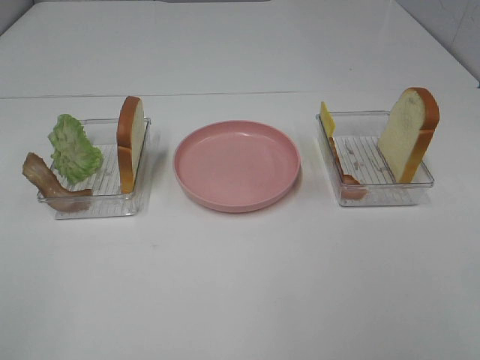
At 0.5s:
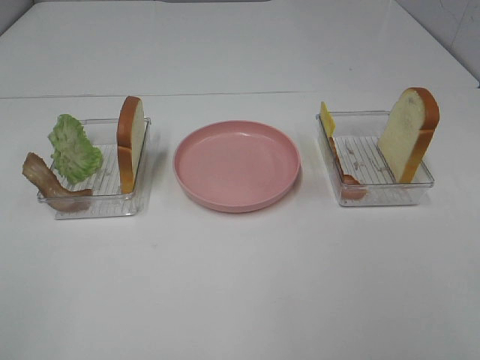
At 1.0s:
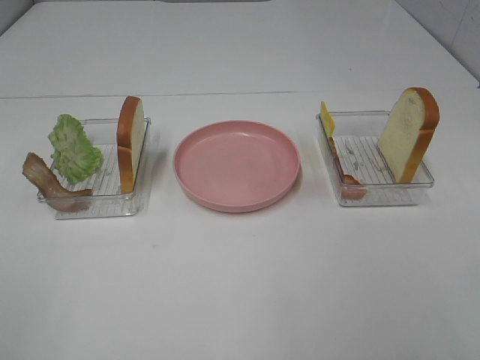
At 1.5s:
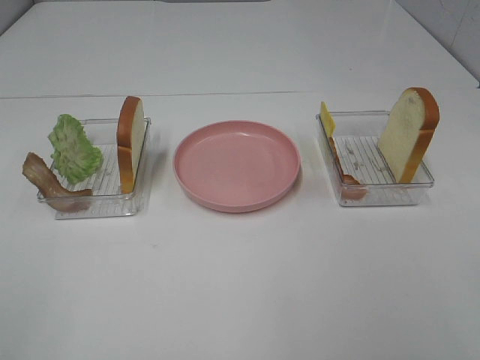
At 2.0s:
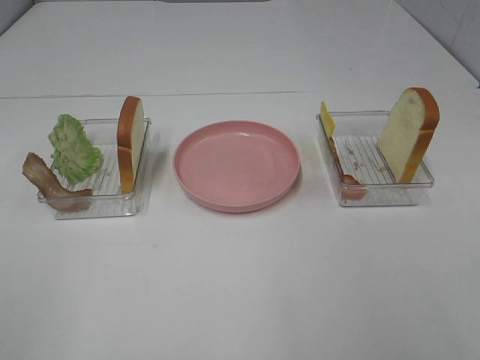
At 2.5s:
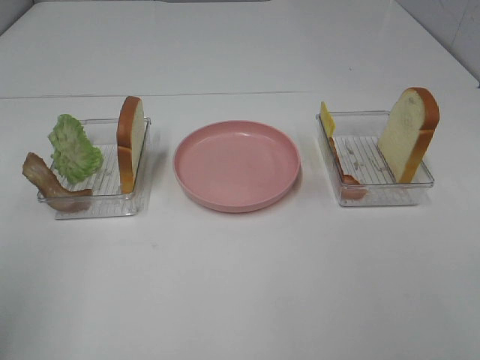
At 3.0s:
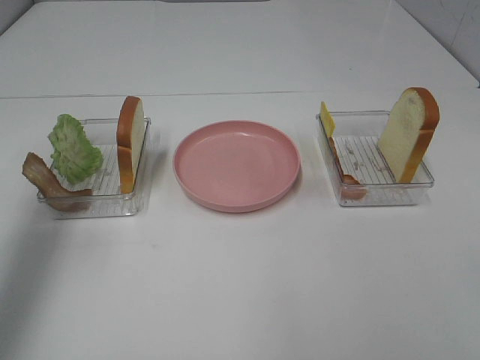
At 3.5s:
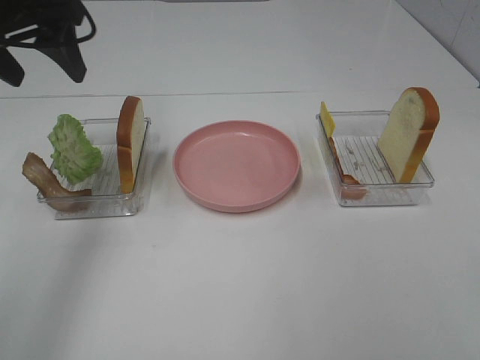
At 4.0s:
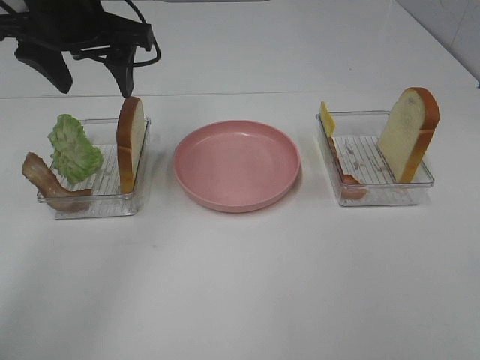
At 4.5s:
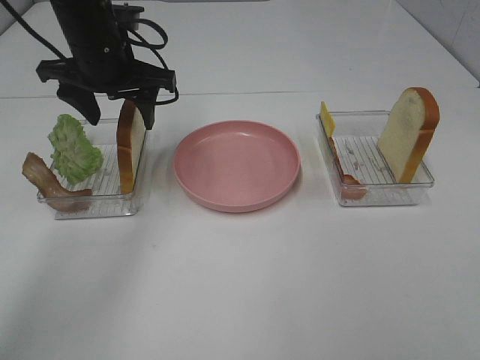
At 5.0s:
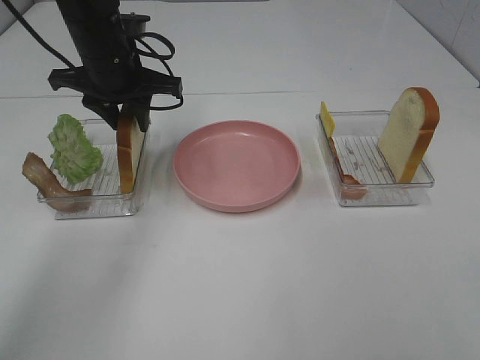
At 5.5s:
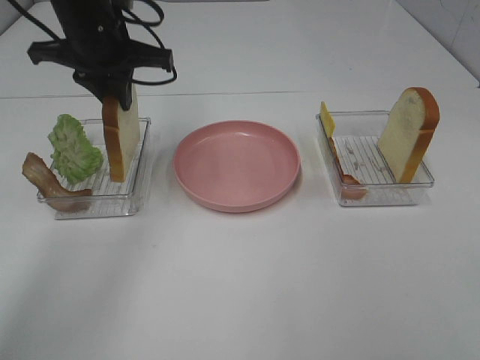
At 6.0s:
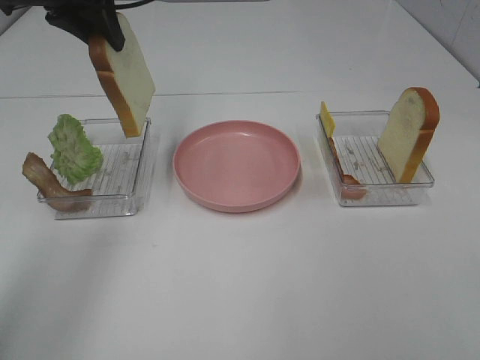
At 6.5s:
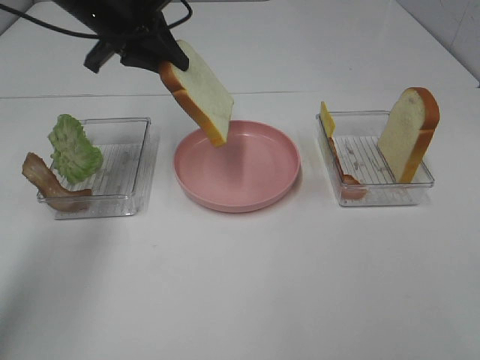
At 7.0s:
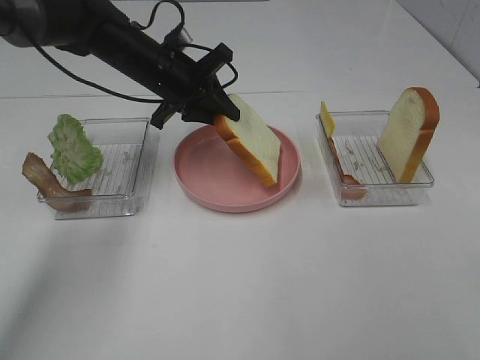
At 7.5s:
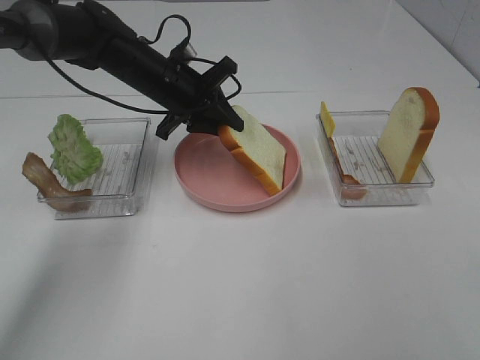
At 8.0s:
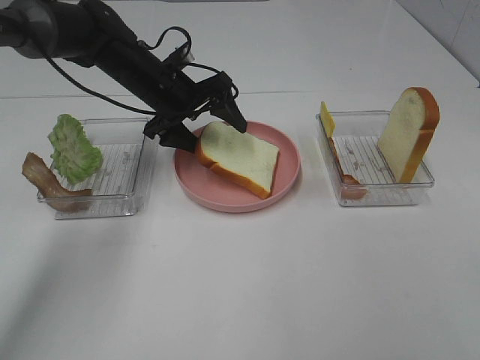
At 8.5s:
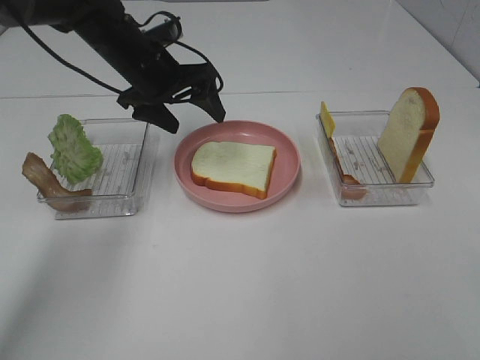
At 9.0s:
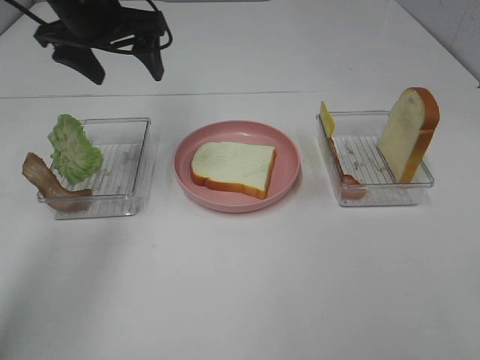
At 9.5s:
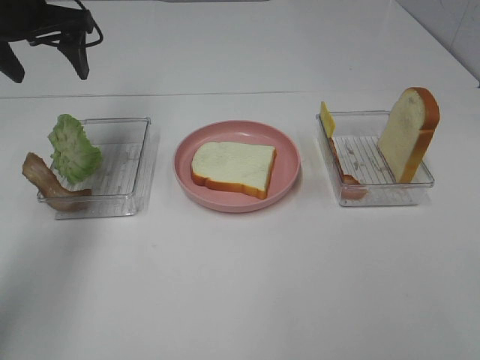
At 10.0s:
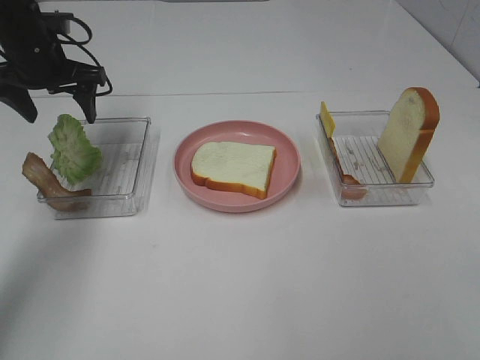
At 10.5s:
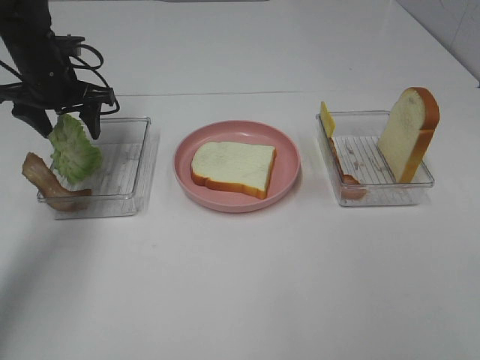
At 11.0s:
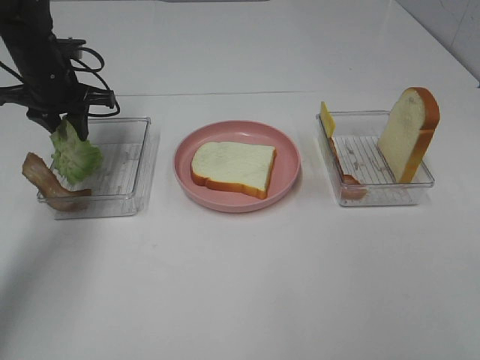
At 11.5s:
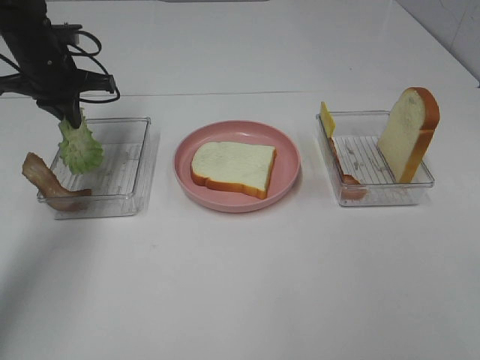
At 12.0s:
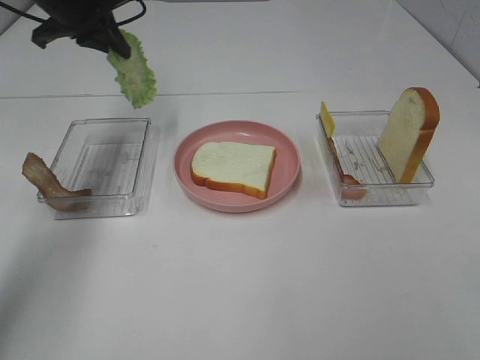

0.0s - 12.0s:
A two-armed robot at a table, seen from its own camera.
Task of the whole recording: Make sandwiches.
Step, 0.0s - 5.0s: Left hand:grab the bread slice.
Step, 5.5s - 8.0s: Left hand:place the bread slice on the plate.
Step, 8.5s - 11.0s: Left hand:grab the lettuce slice.
2.0s - 4.0s: The left gripper shifts approximately 40 cm forward.
4.0s - 6.0s: The left gripper closes up.
6.0s - 8.0s: The left gripper shifts some 20 cm downward, and opens its fingers.
8.0s - 10.0s: The left gripper shifts some 15 cm to the left.
10.0s - 12.0s: The left gripper shifts about 10 cm upward and to the right, and closes its fingers.

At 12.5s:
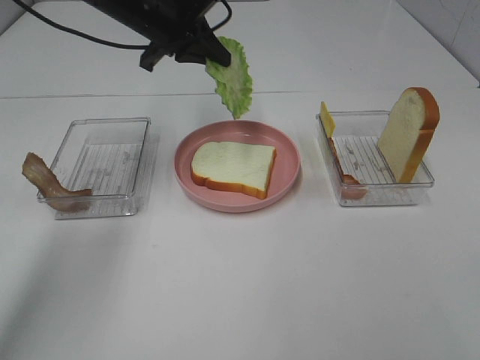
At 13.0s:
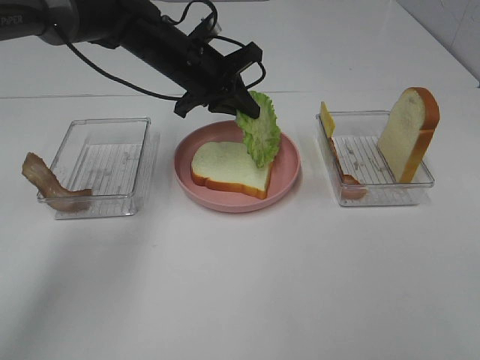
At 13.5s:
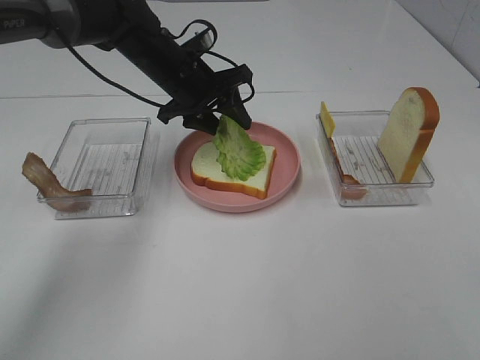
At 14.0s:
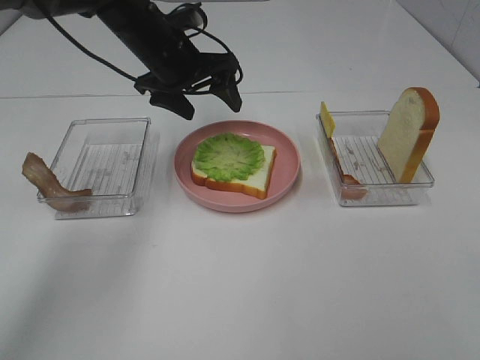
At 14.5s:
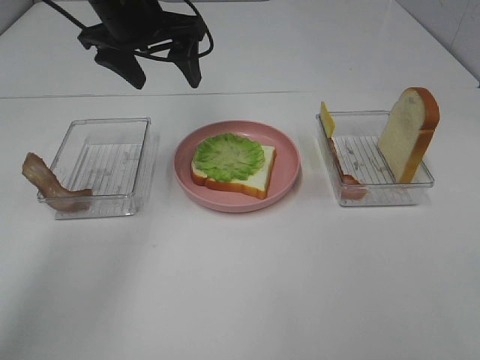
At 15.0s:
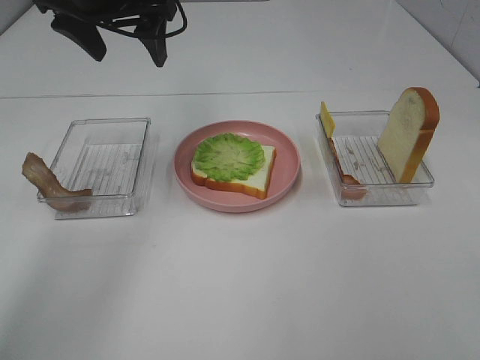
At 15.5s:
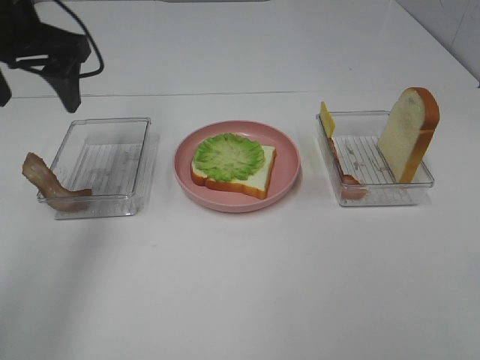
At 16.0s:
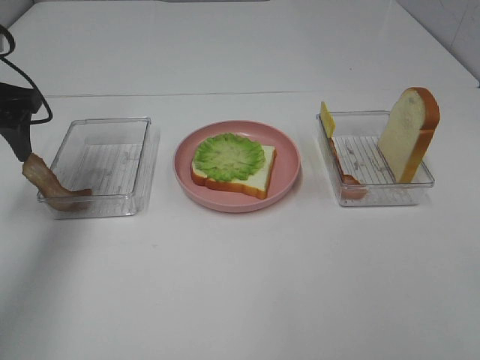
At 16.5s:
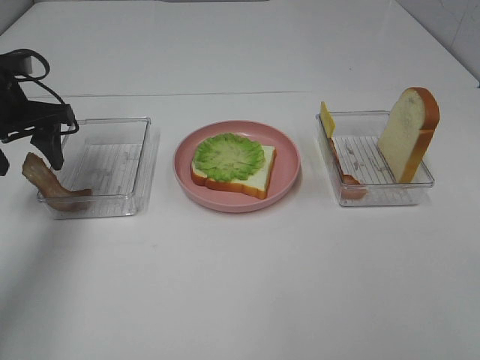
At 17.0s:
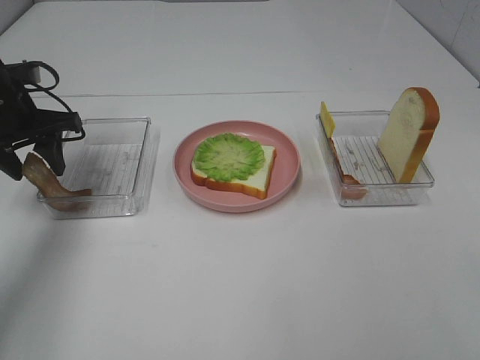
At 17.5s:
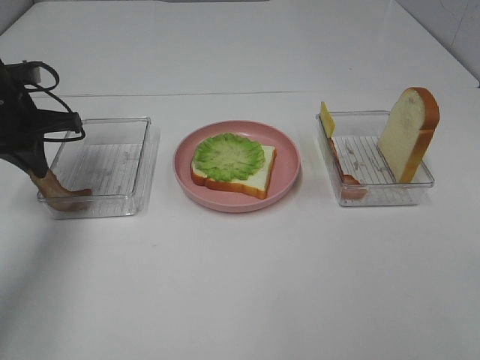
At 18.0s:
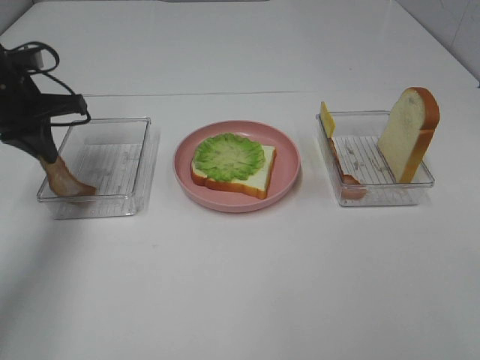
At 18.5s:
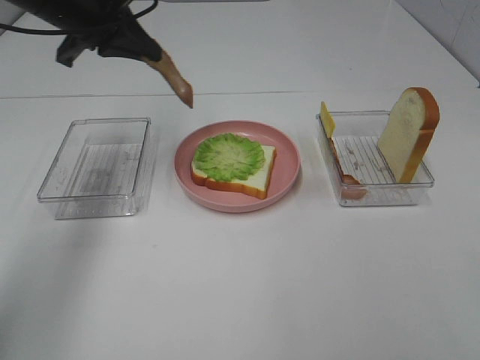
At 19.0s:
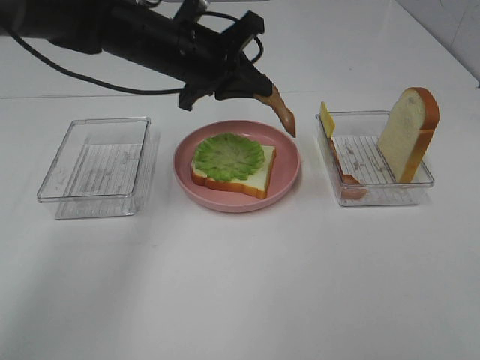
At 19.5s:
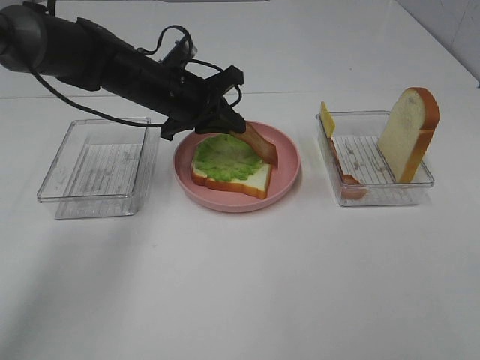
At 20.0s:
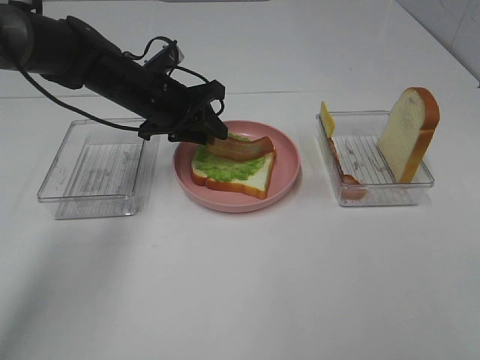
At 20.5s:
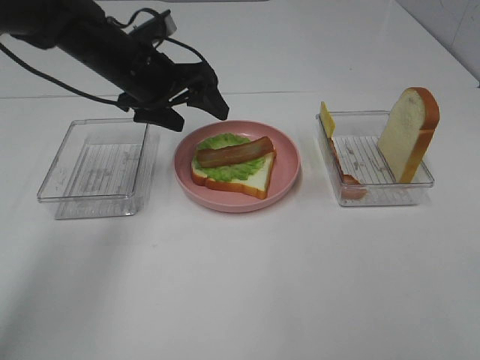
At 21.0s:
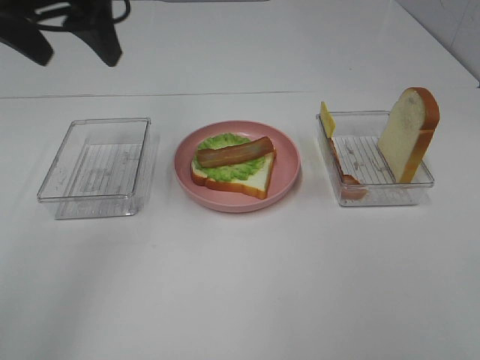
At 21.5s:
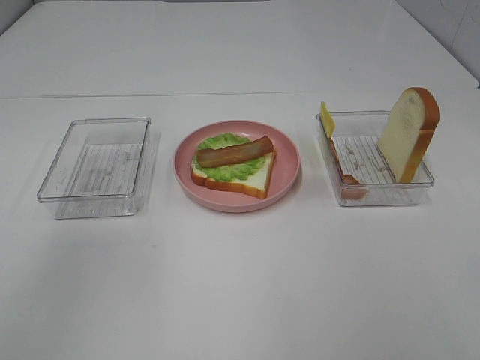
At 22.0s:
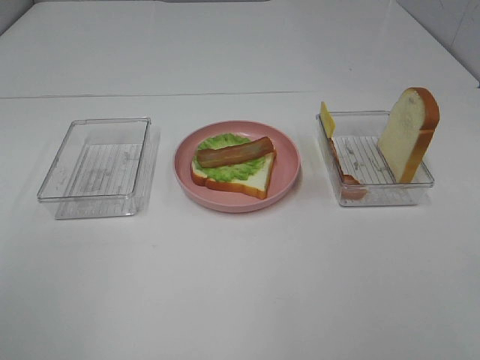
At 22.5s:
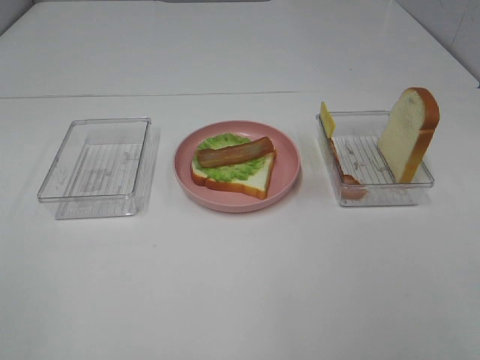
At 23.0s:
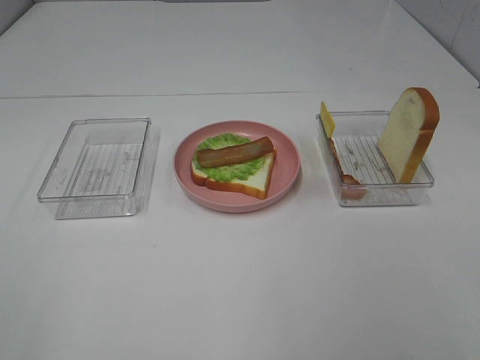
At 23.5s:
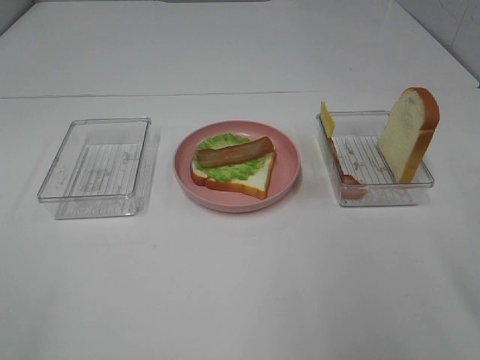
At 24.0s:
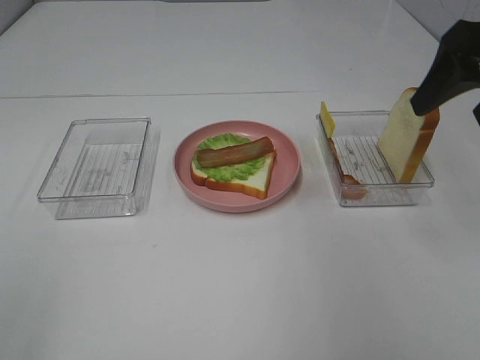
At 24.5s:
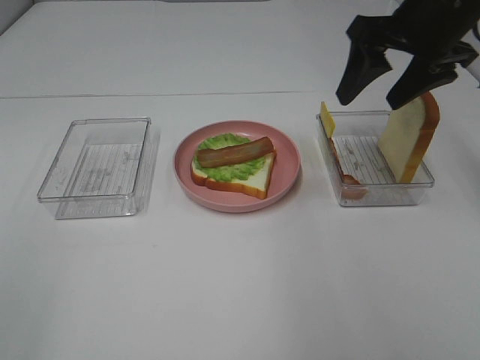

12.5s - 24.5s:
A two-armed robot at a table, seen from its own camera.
Task of the whole recording: Make sandwiches.
Step, 14.0s - 17.5s: Left hand:grab the bacon.
Step, 18.0s - 20.0s: Left hand:place bacon on lettuce slice.
12.5s - 14.5s: The left gripper goes downward and returns, some 10 cm each way, and opens.
14.5s - 16.5s: The left gripper moves to the left and downward, some 15 cm.
16.5s - 18.5s: The left gripper shifts about 10 cm to the right and upward, and closes.
18.5s - 20.5s: The left gripper heads downward and to the right, covering roughly 10 cm, and opens up.
20.5s - 22.5s: The left gripper heads backward and to the left, covering approximately 50 cm.
22.5s - 24.5s: The right gripper heads forward, covering approximately 35 cm.

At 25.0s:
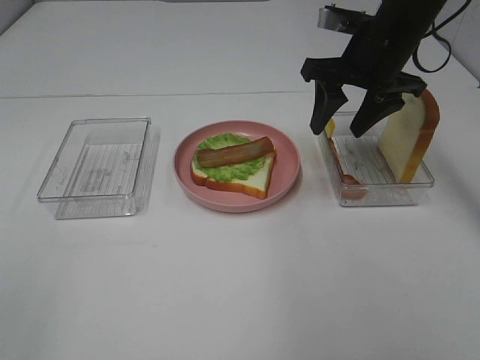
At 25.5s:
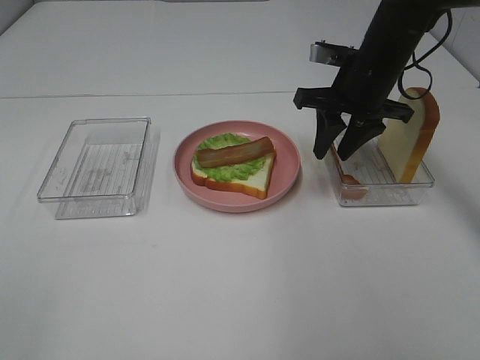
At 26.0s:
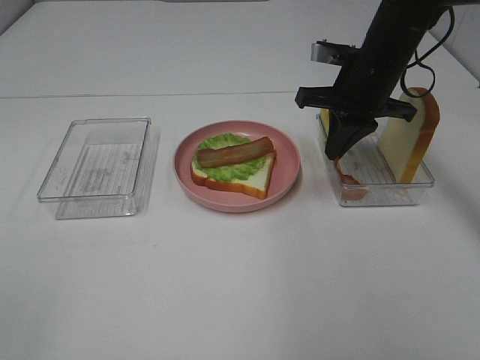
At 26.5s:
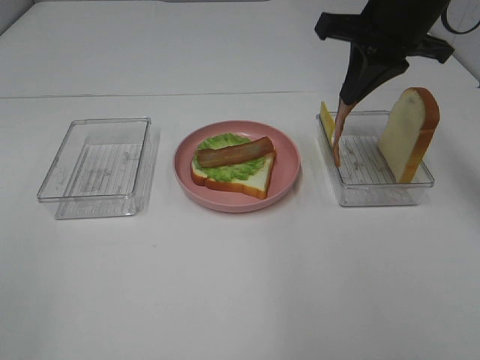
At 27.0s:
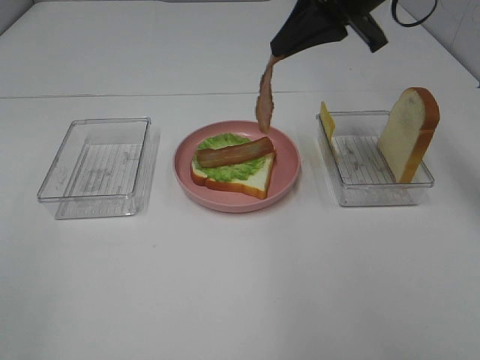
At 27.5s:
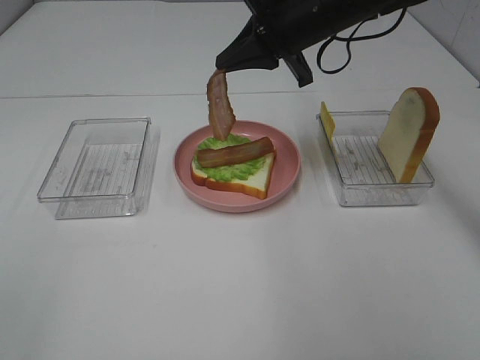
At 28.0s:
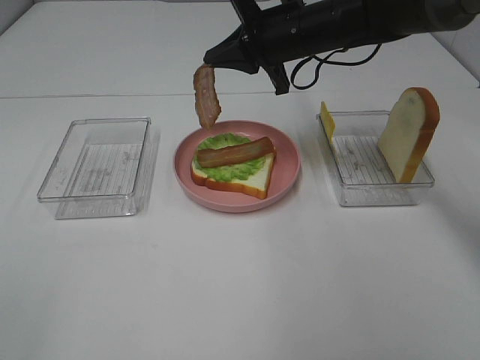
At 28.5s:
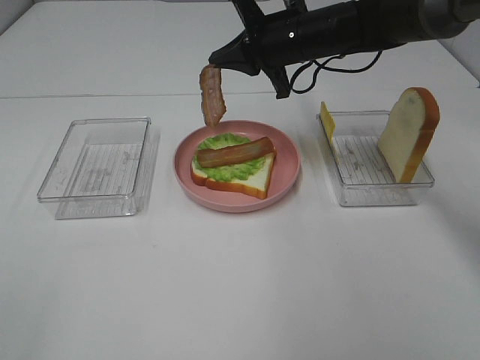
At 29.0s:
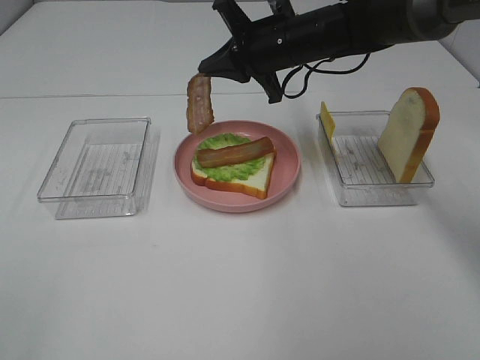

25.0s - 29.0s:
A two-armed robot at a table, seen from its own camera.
Task of the whole recording: Make sandwiches.
25.0s - 27.0s: The right gripper heads upward, covering roughly 10 cm, and closes its fingers.
27.0s - 29.0s: The right gripper is displaced downward, forward and to the left by approximately 15 cm.
